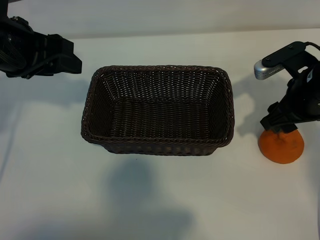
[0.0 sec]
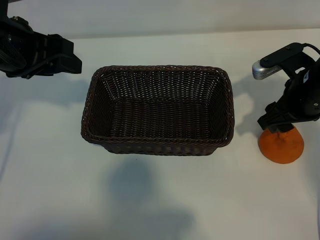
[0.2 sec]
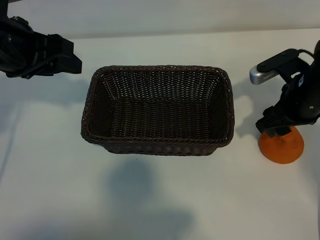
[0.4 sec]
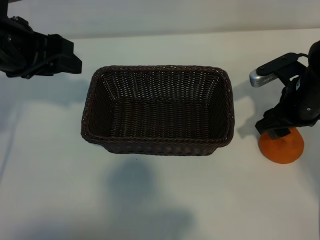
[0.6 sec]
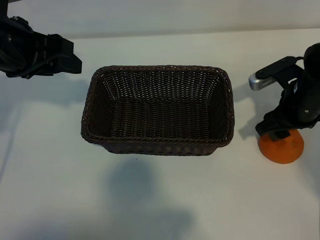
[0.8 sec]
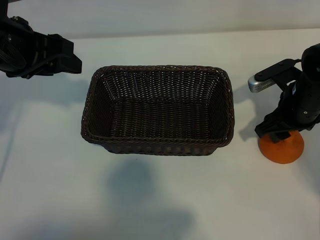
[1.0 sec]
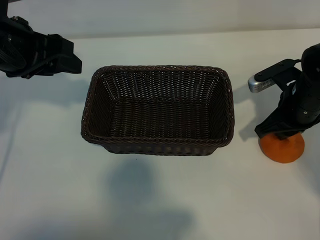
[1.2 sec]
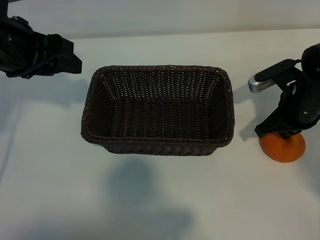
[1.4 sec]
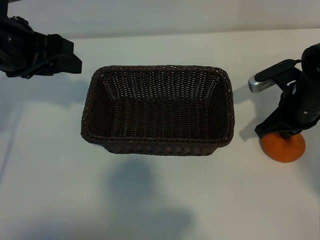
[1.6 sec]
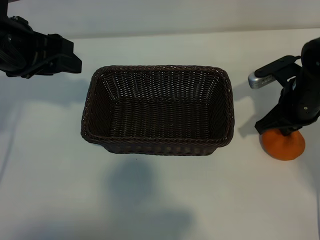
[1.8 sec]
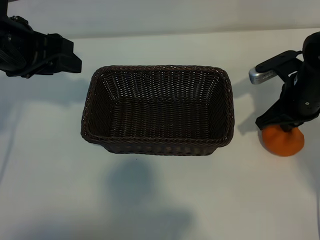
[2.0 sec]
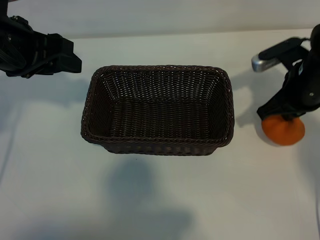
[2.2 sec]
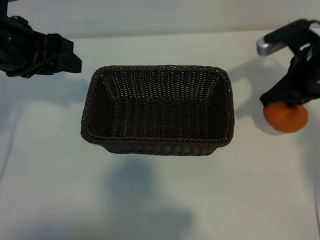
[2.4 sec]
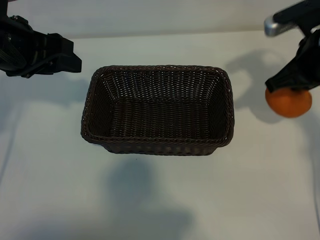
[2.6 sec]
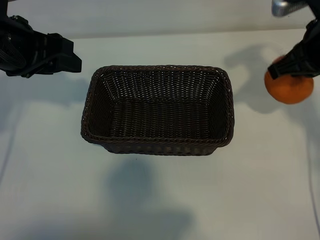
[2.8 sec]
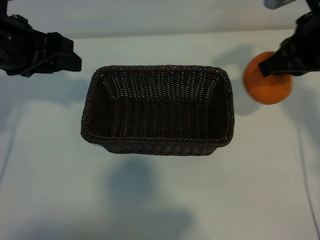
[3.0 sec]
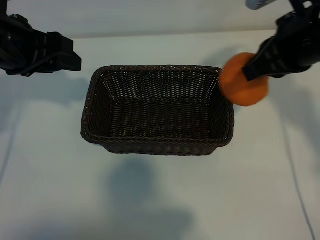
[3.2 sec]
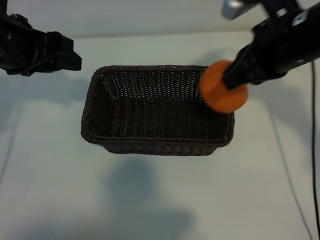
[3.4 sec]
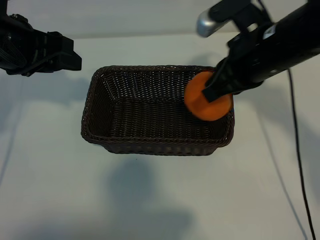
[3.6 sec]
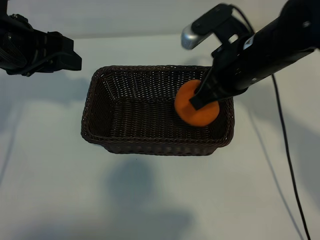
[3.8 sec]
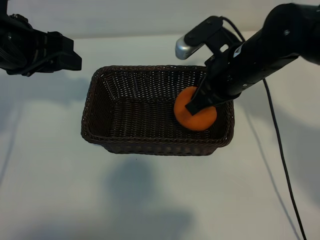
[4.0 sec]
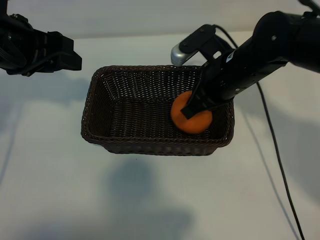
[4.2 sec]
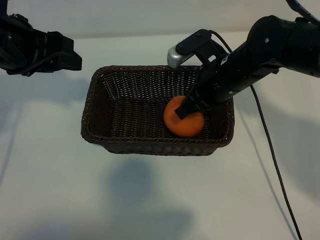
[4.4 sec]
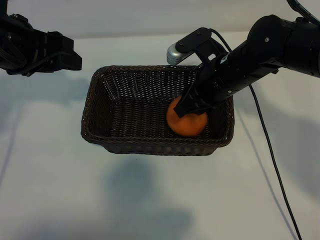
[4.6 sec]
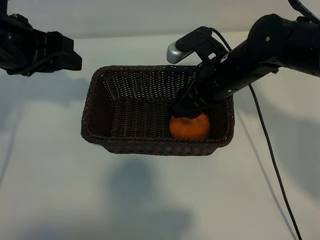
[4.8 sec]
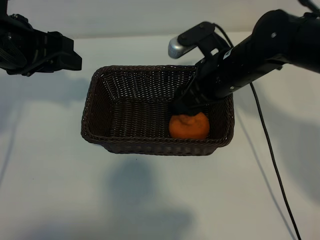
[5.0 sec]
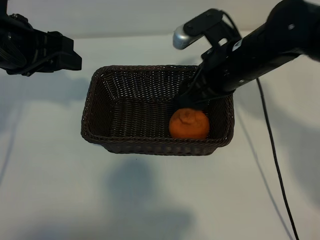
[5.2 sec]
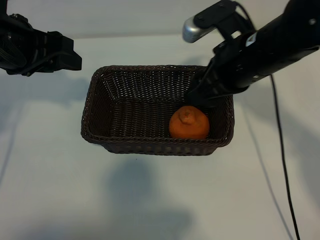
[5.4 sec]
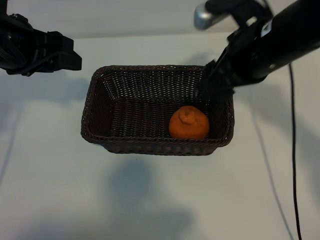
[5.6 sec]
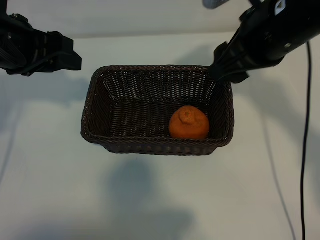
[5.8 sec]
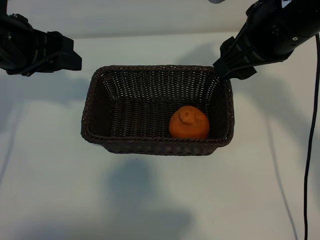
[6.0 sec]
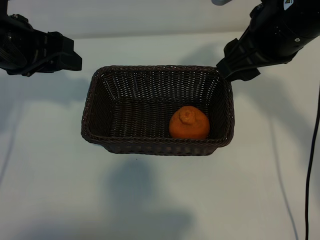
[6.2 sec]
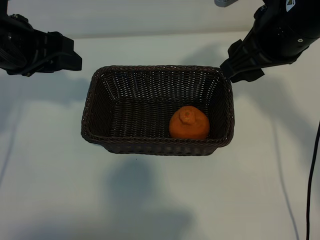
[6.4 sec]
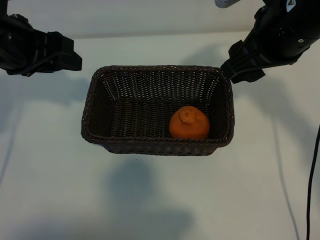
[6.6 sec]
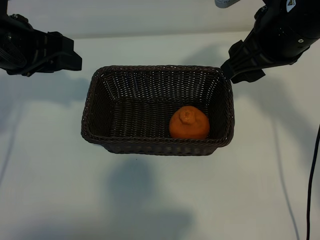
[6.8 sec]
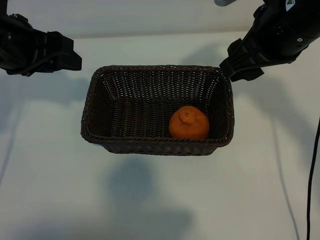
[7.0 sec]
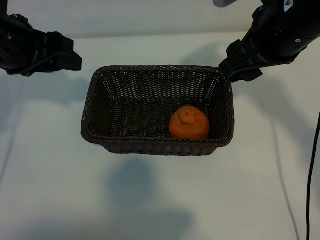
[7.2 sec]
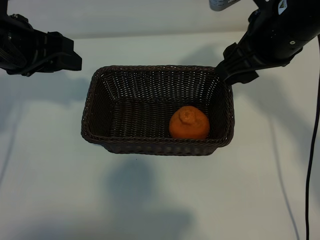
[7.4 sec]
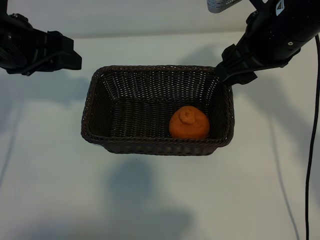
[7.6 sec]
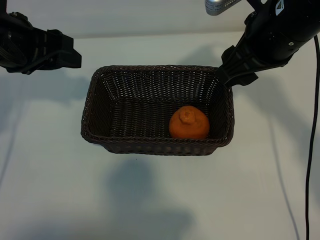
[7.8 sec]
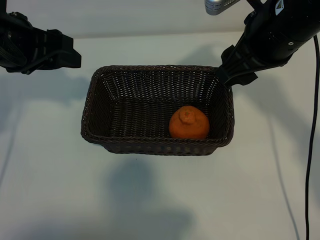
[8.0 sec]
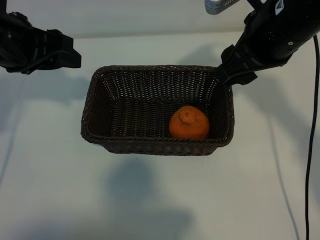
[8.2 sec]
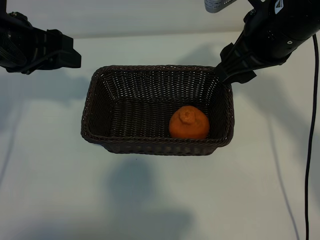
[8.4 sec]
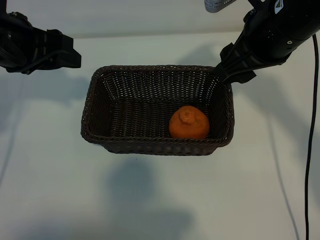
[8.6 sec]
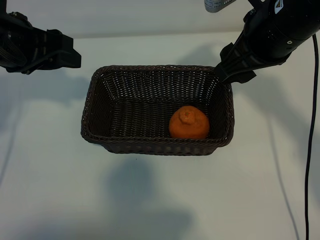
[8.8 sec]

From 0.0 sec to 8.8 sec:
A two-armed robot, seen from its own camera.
Task of the whole recording: pick up the orange and put it into the basket.
Step, from 1.6 sec to 4.6 sec: Place the orange in the basket with right gripper.
